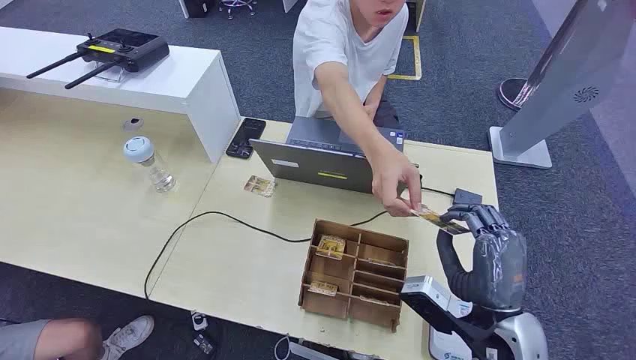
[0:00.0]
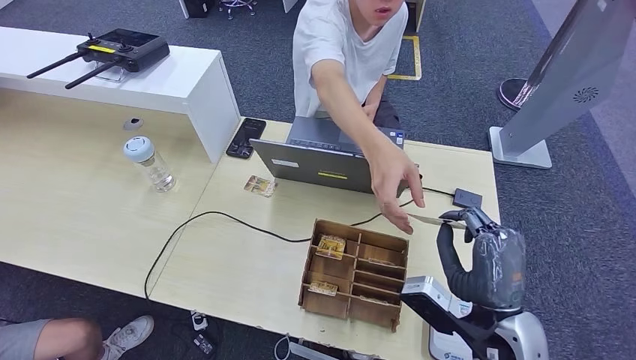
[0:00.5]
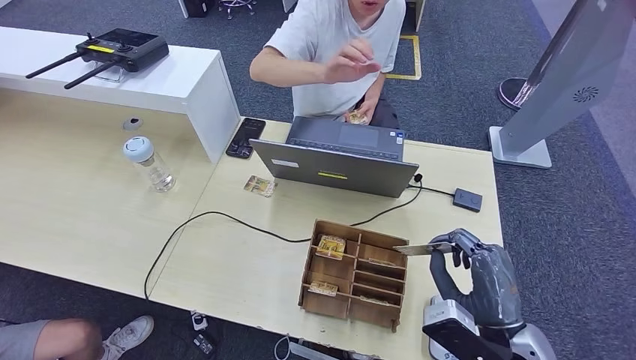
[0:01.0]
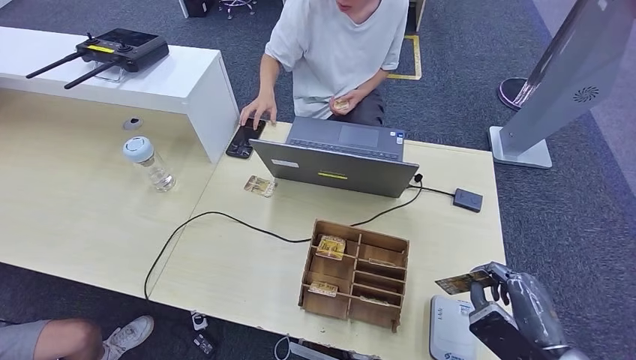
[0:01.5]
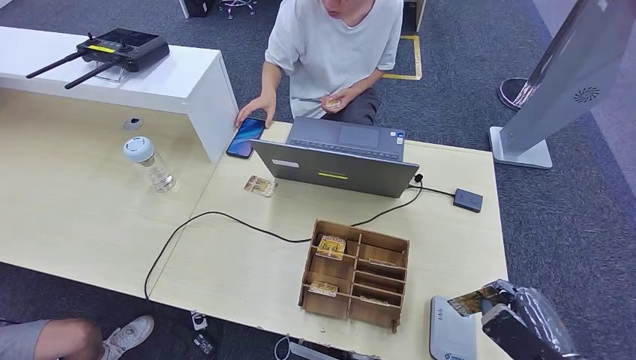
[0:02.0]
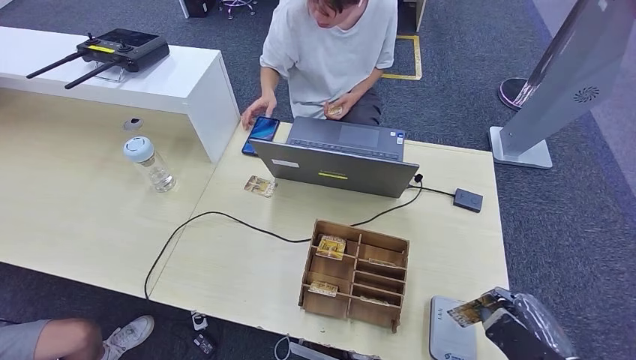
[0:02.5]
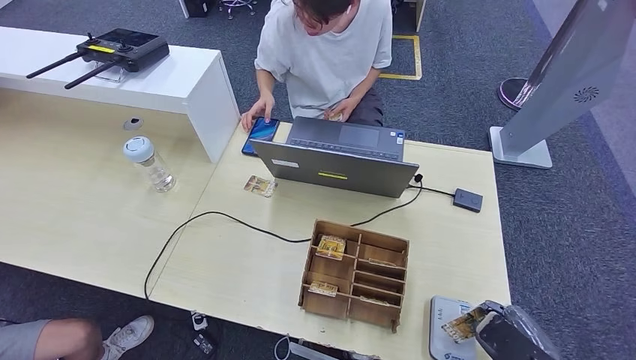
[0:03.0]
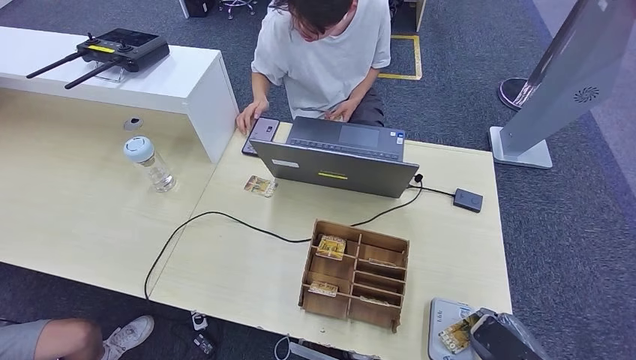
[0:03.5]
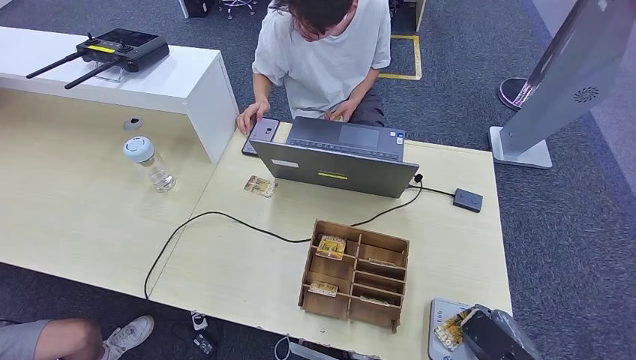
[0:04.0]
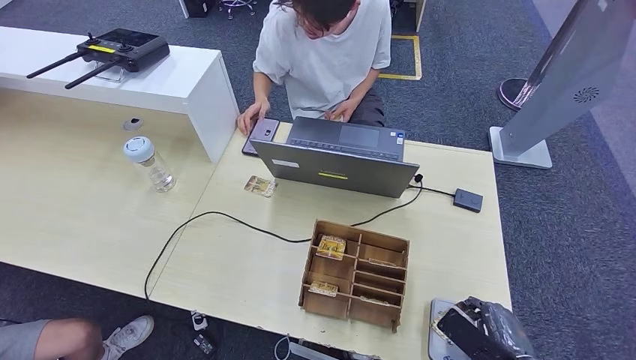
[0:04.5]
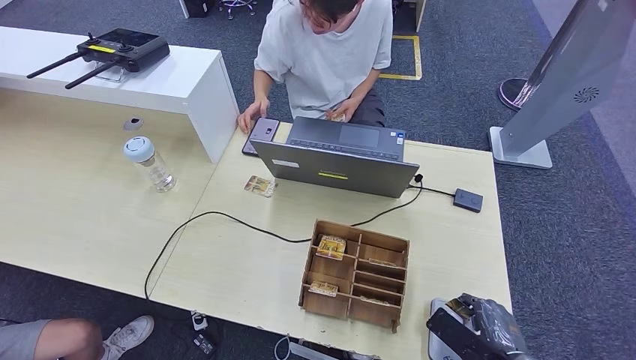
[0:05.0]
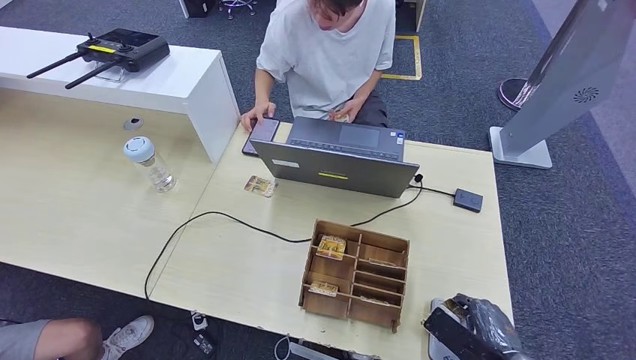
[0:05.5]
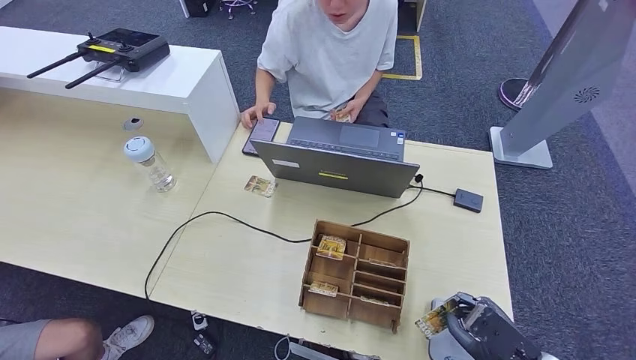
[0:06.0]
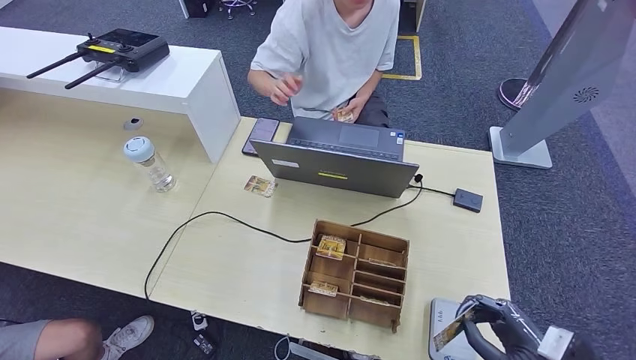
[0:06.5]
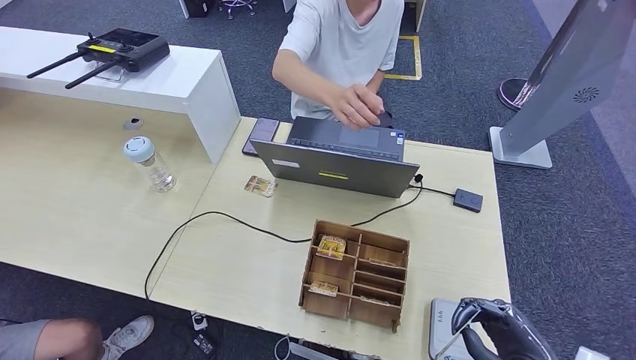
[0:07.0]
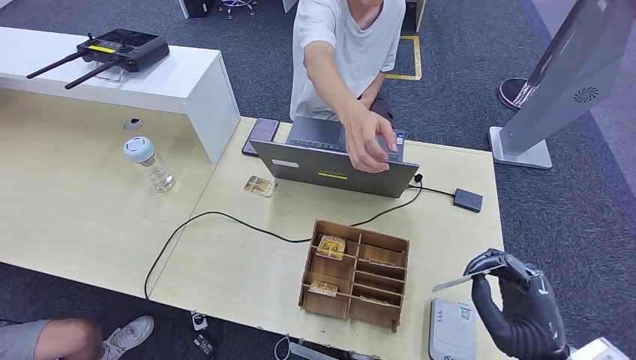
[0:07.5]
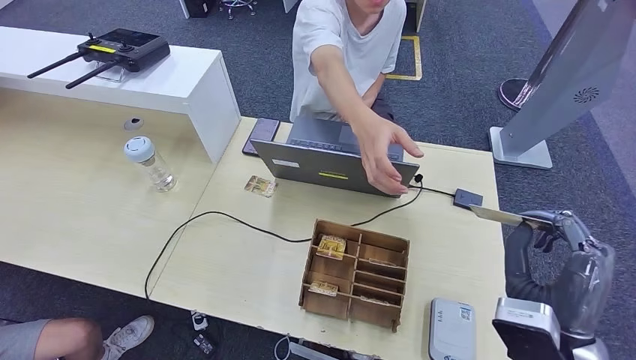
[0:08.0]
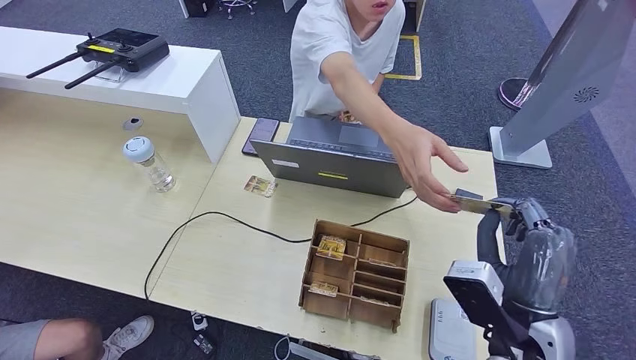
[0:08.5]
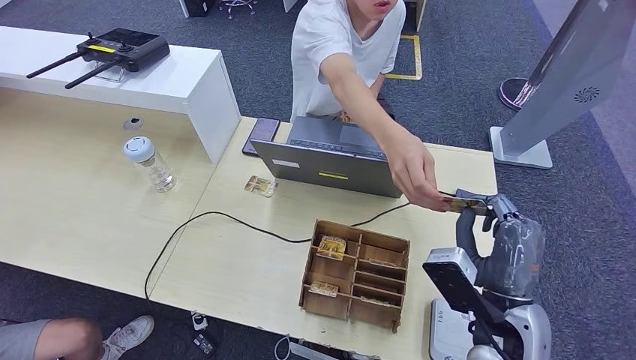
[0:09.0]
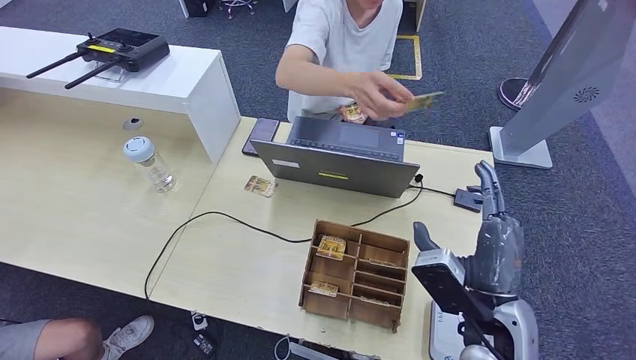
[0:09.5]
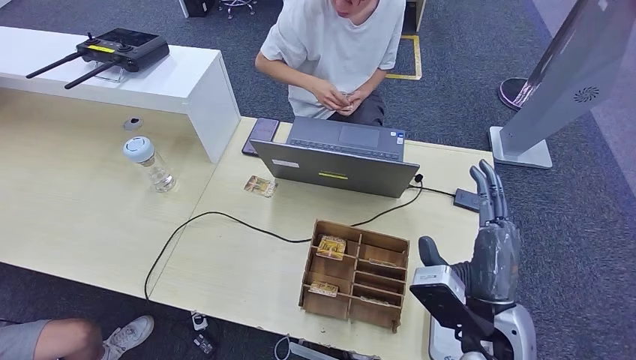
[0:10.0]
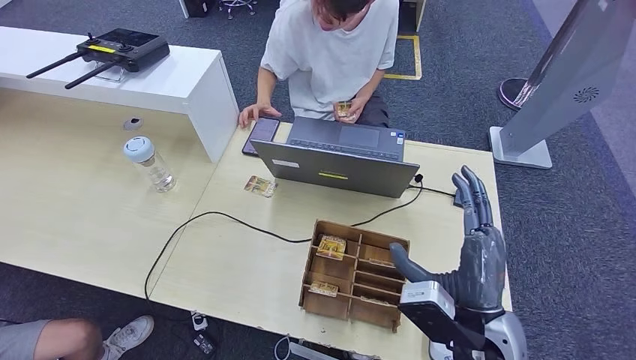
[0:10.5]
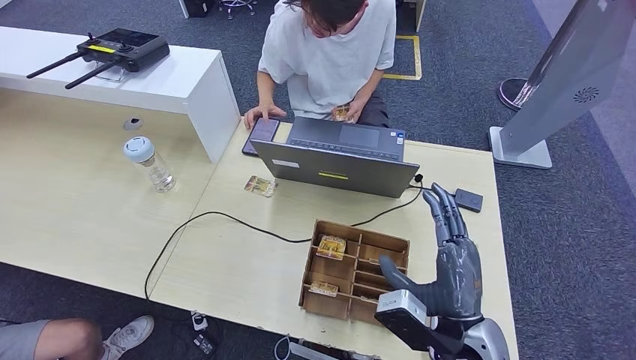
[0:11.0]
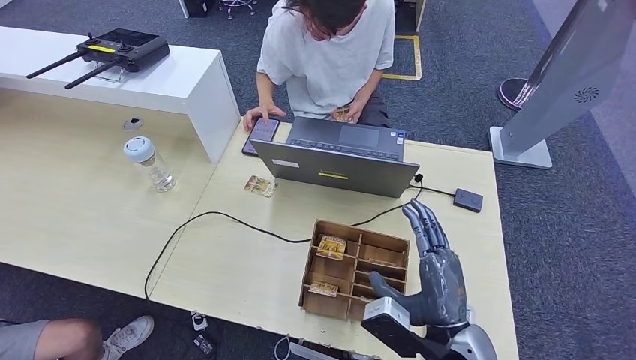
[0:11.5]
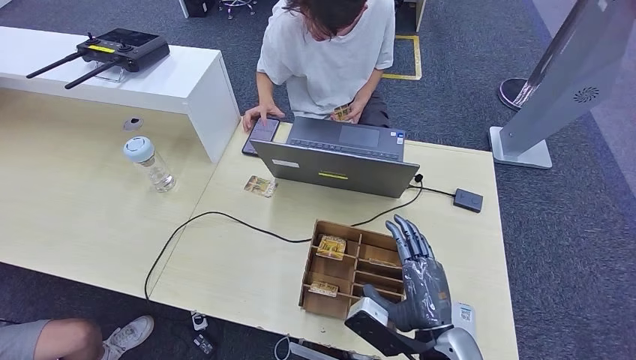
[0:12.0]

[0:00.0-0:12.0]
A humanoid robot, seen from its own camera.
Step, 0:00.0 to 0:01.5: Take the ID card from the person's hand.
Step, 0:02.0 to 0:06.5: Place the ID card on the card reader.
Step, 0:07.5 to 0:10.0: Hand the ID card to the person.
0:02.0 to 0:04.0: The right hand is displaced downward by some 5 cm.
0:04.0 to 0:06.0: There are only small adjustments of the hands.
0:06.0 to 0:08.0: The right hand goes about 15 cm upward and to the left.
0:08.0 to 0:10.0: The right hand shifts roughly 5 cm to the left.
0:10.0 to 0:12.0: The right hand goes about 5 cm downward.

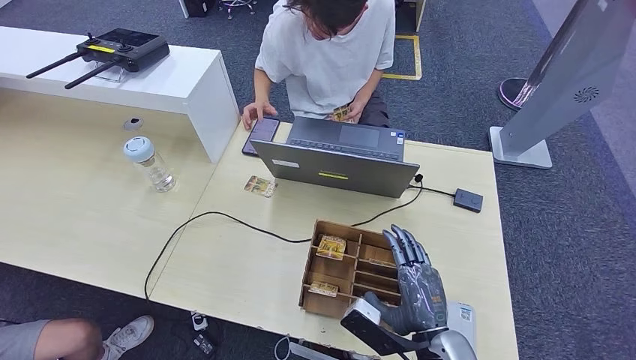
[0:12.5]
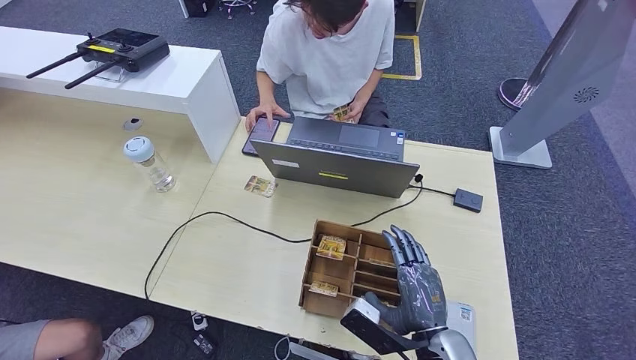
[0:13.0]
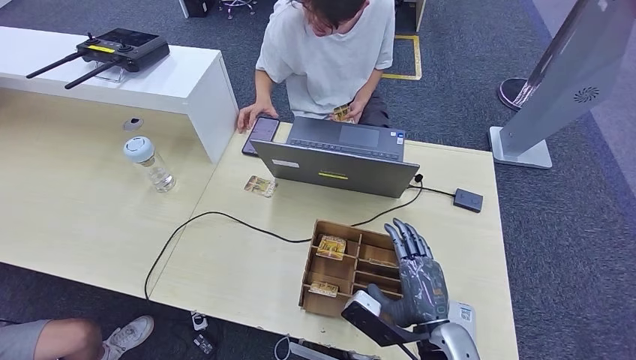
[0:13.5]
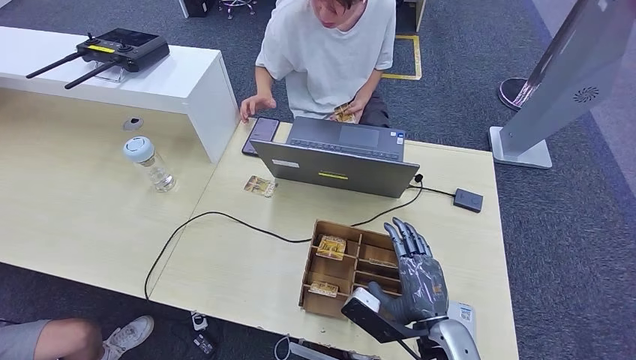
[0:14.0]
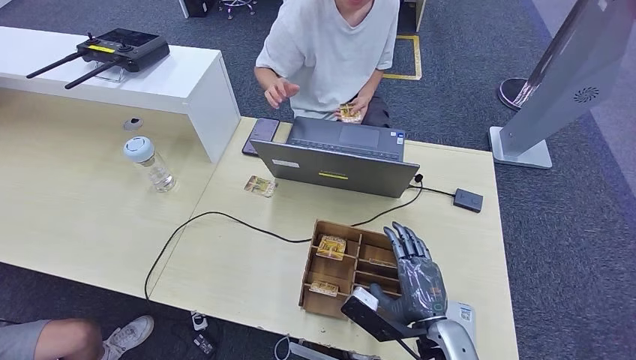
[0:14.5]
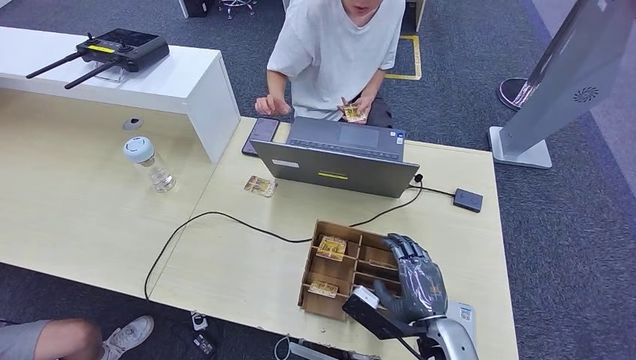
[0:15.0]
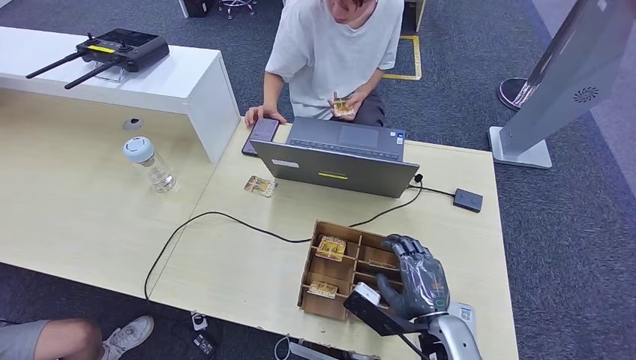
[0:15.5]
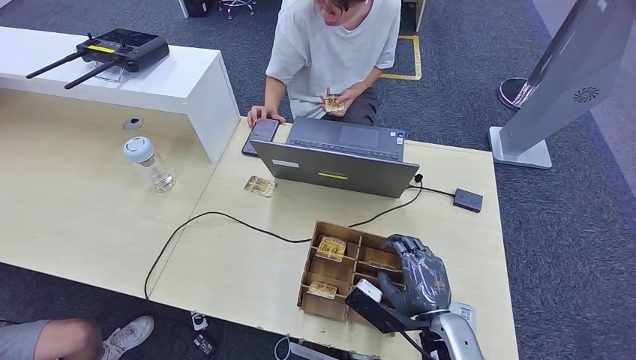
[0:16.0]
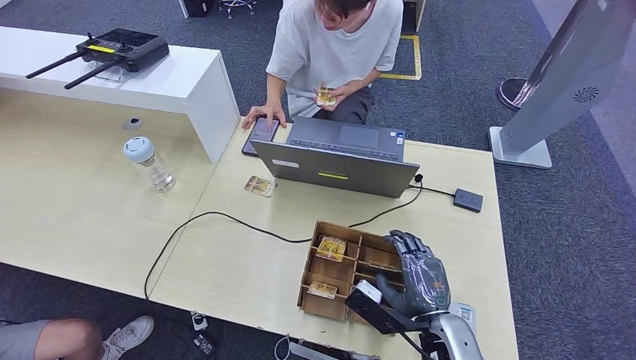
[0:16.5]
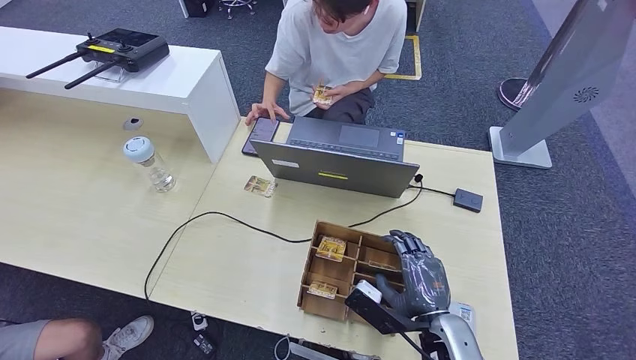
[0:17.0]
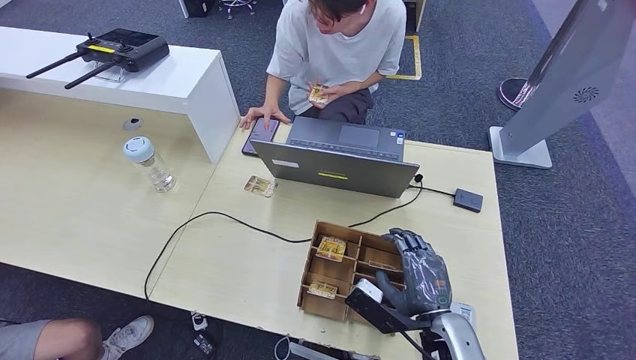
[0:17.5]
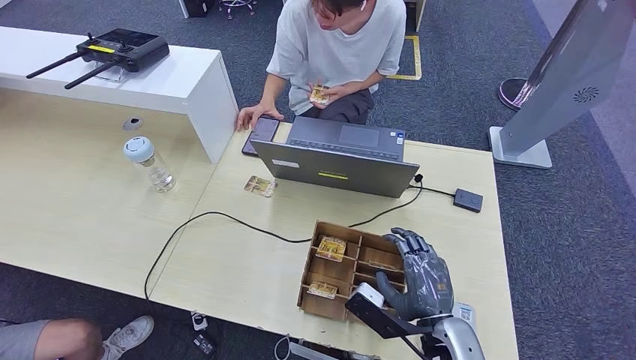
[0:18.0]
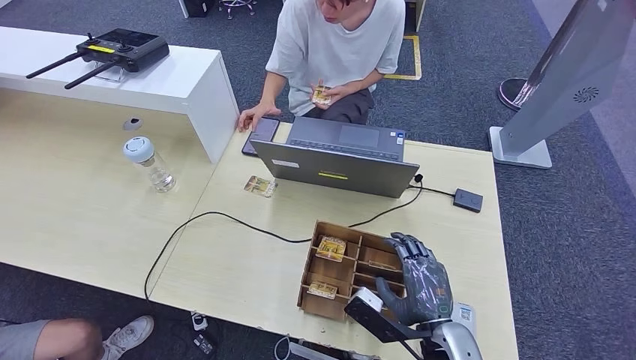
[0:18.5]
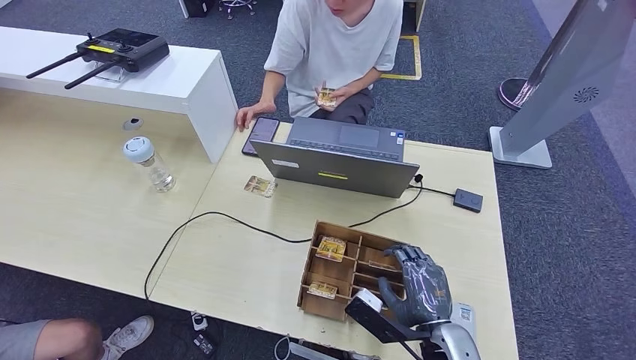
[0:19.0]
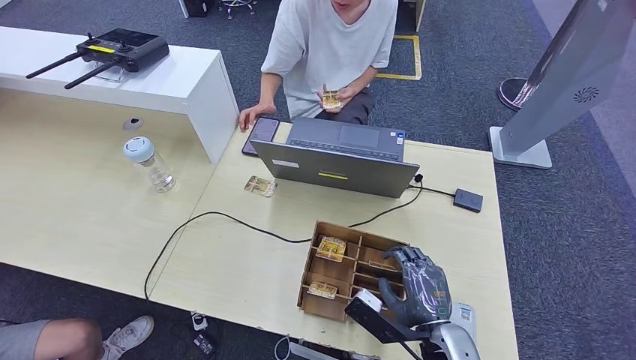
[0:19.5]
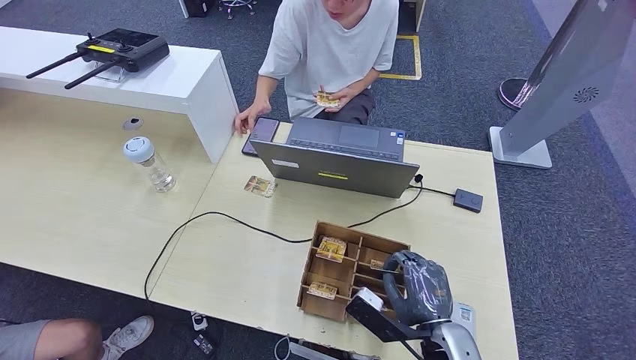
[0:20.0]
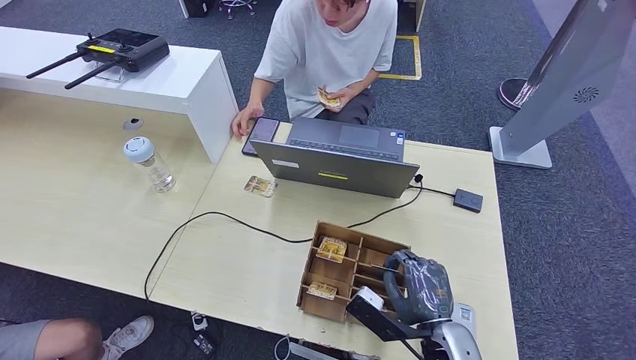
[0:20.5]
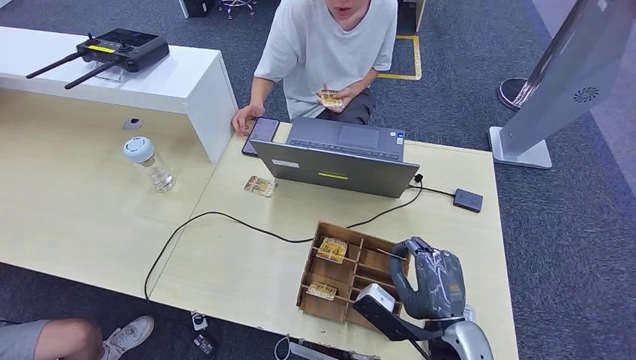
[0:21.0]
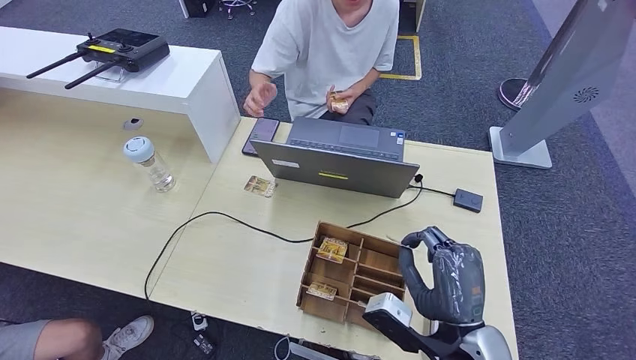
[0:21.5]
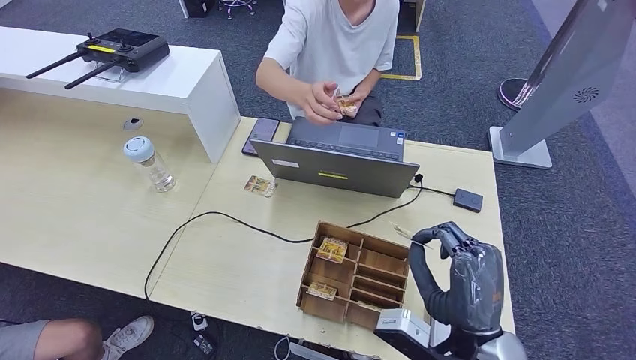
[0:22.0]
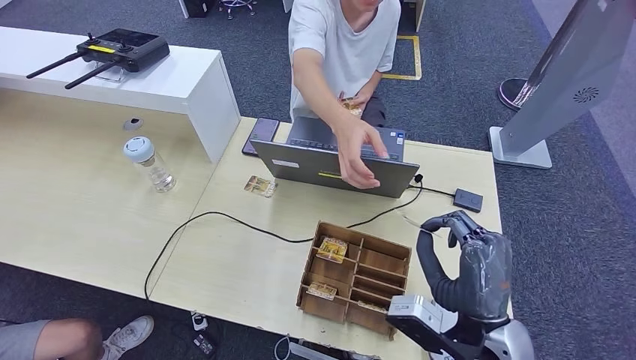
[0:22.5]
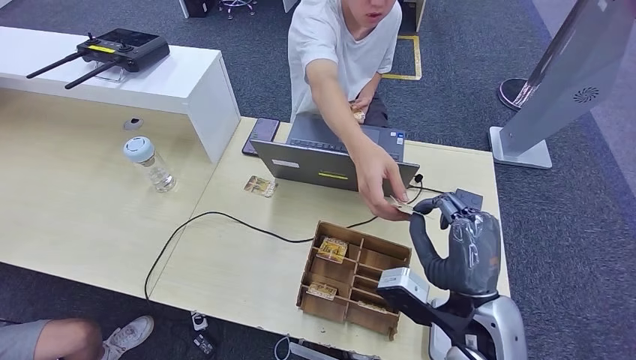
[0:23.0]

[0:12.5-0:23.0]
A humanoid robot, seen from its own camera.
Step, 0:20.0 to 0:21.5: Pick up the room key from the key card box.
Step, 0:22.5 to 0:23.0: Hand the room key to the person.
0:12.5 to 0:14.5: The hands make only small movements.
0:14.5 to 0:19.0: Both hands stay put.
0:19.0 to 0:21.0: The hands make only small movements.
0:21.0 to 0:23.0: The right hand shifts about 5 cm upward.
